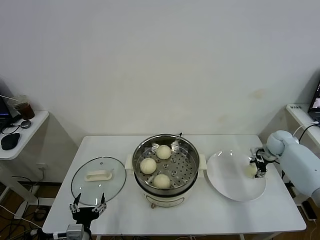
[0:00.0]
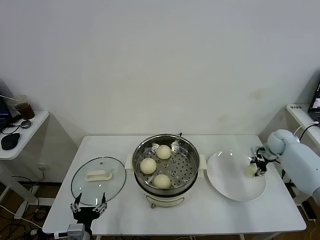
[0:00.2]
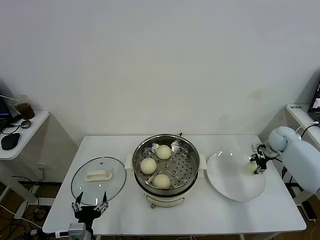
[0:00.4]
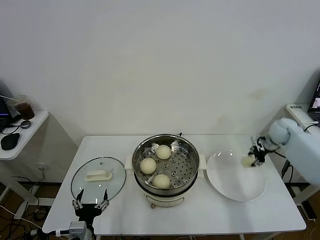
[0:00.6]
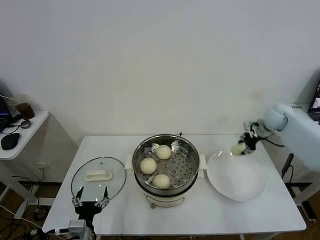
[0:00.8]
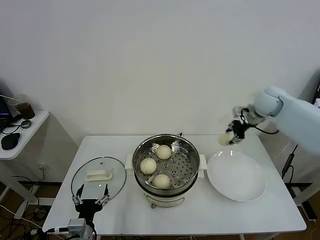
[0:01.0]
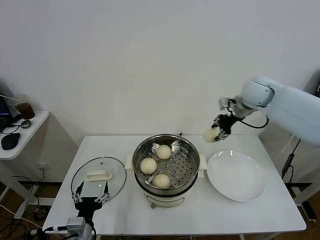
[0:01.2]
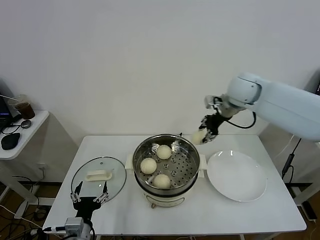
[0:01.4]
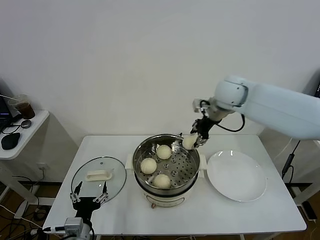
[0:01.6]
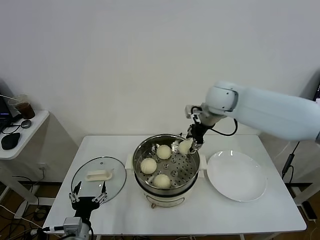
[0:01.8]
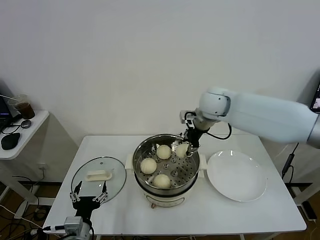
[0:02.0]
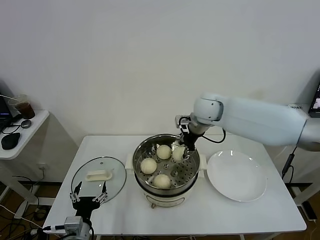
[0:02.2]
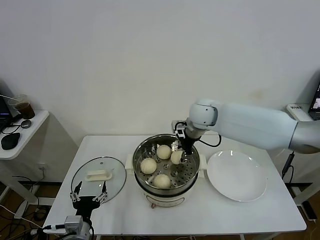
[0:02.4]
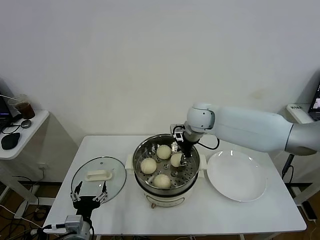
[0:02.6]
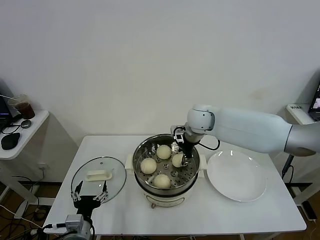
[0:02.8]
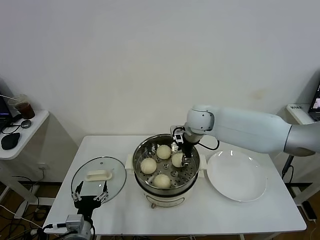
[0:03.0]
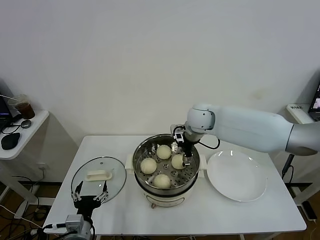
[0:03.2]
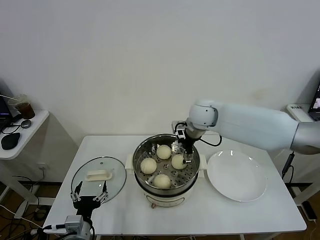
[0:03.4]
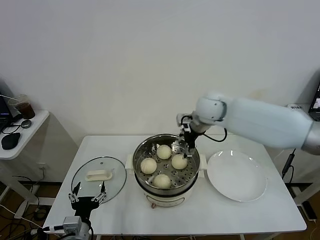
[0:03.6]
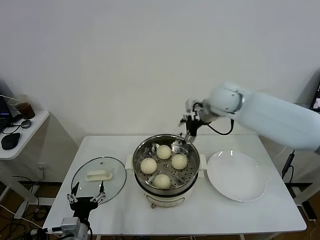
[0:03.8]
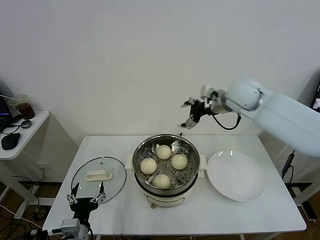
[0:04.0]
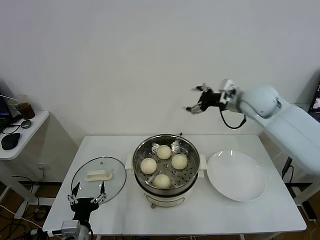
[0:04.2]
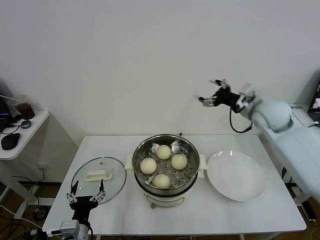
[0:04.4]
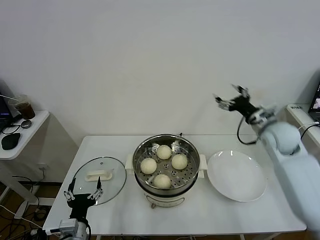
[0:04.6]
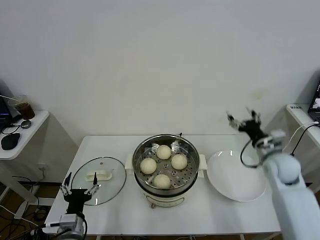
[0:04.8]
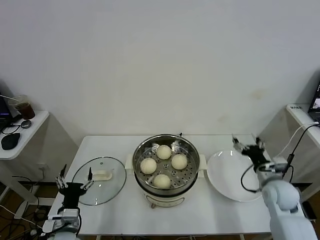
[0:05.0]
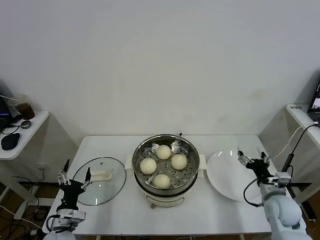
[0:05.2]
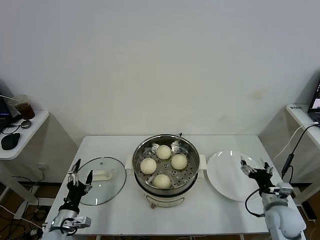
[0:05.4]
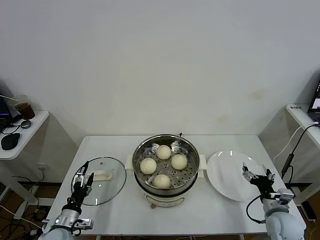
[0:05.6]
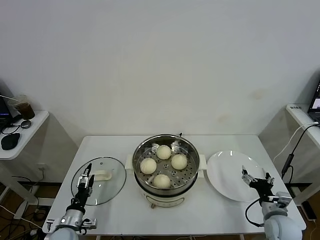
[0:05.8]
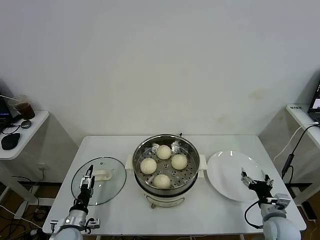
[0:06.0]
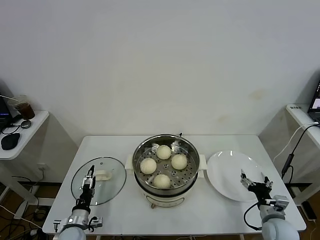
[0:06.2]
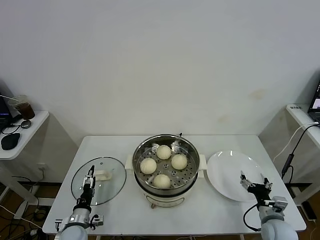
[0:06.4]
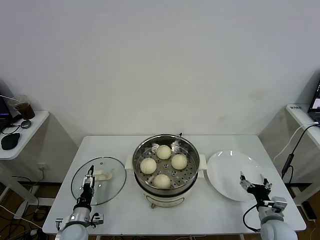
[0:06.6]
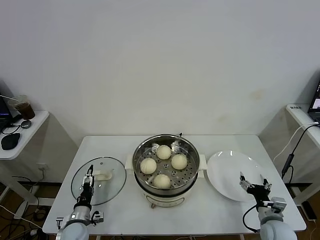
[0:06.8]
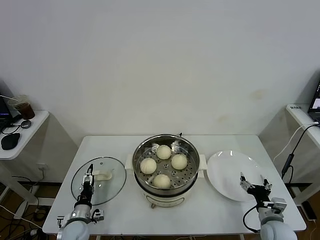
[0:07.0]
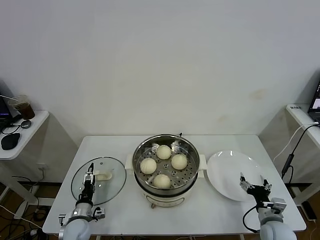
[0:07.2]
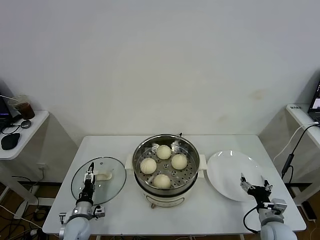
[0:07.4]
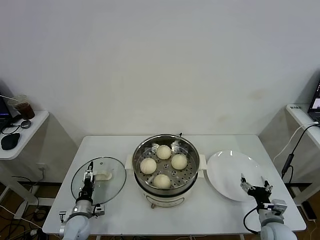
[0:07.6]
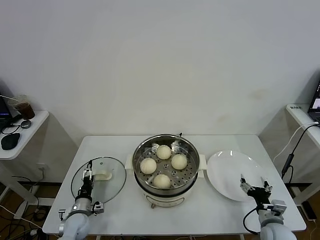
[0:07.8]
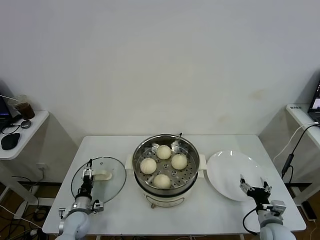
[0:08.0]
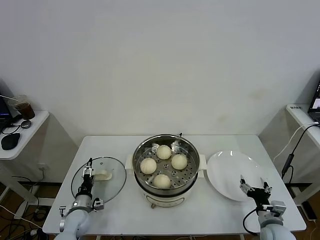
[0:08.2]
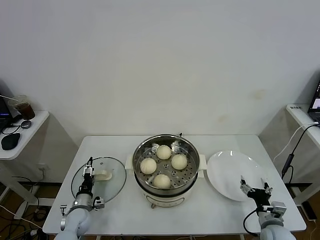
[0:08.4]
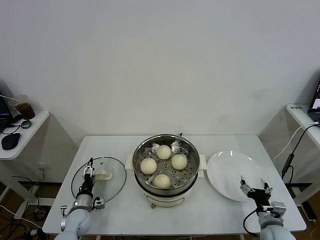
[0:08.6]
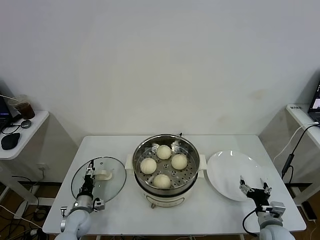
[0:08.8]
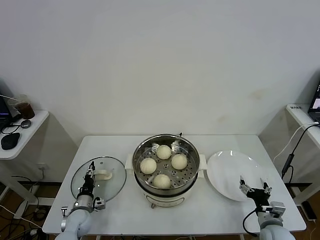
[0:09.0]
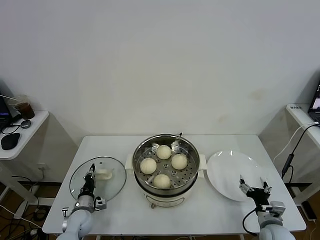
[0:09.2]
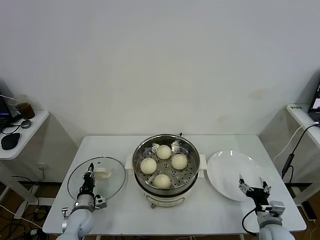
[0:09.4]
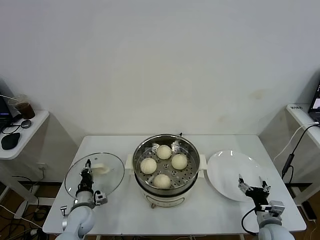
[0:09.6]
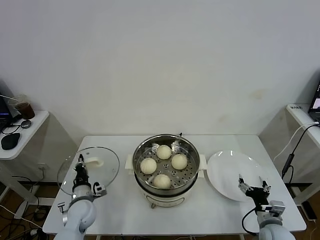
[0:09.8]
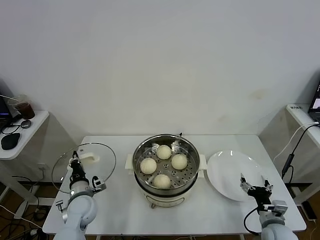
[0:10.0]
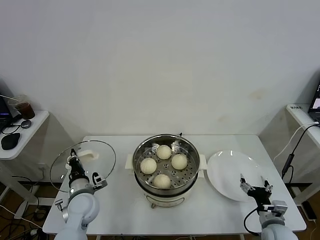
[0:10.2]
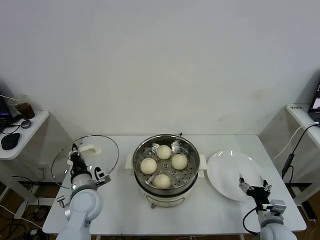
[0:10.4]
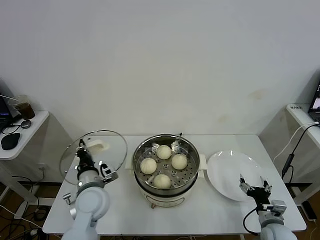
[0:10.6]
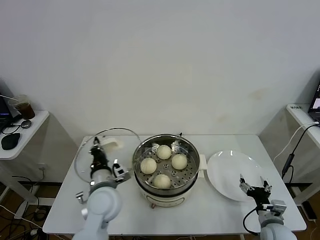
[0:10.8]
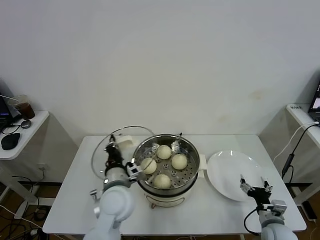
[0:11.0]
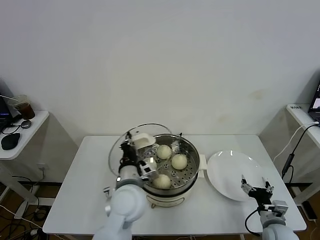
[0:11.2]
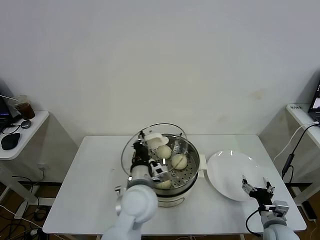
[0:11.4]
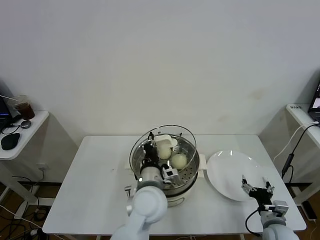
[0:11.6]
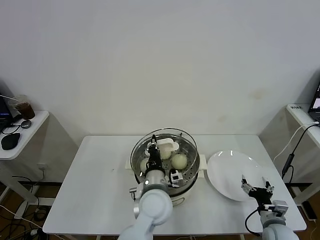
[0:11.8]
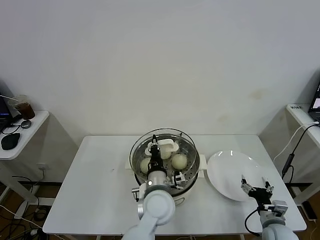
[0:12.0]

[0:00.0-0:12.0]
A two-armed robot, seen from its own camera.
Task of the whole recording: take steamed baozi put them in steamer.
Step, 0:00.4 to 0:03.4: Place the baozi on the steamer with right gripper.
Step, 0:03.6 to 0:09.4: Grasp the pot lid with left gripper.
0:00.0 to 0:01.6: The right gripper goes about 35 cm to the left and upward, and closes up.
0:01.6 to 0:03.0: The right gripper goes approximately 10 cm downward and to the left.
0:03.0 to 0:04.4: The right gripper shifts approximately 20 cm to the right, and opens up.
0:04.4 to 0:06.0: The right gripper is displaced downward and backward by about 35 cm, while the left gripper goes about 15 cm downward, to the left and forward.
0:06.0 to 0:07.6: The left gripper is displaced forward by about 5 cm.
0:07.6 to 0:09.0: The left gripper closes its fingers.
0:09.0 to 0:10.4: The left gripper is displaced upward and to the right by some 20 cm, and closes its fingers.
0:10.4 to 0:12.0: The left gripper heads to the right, covering some 25 cm.

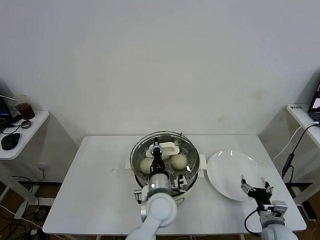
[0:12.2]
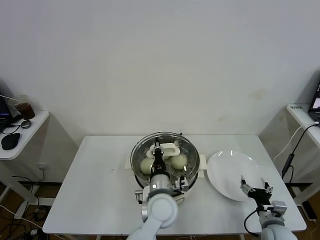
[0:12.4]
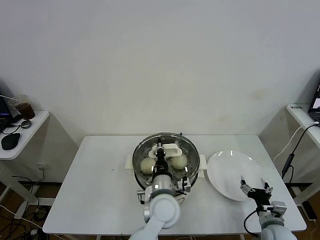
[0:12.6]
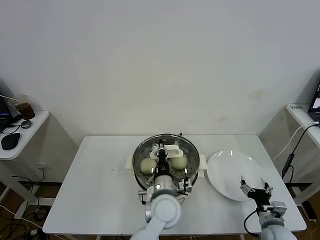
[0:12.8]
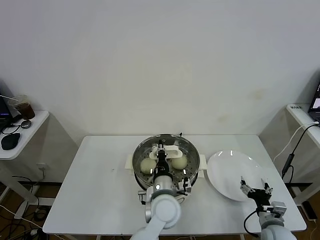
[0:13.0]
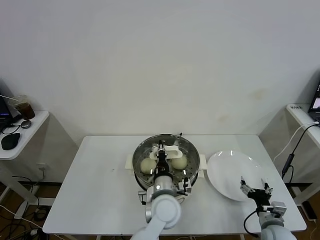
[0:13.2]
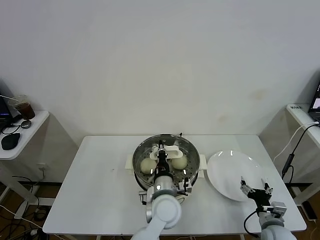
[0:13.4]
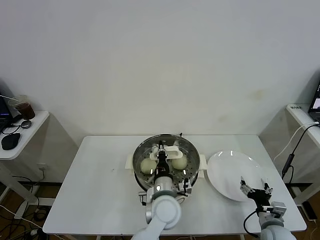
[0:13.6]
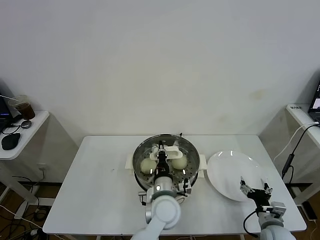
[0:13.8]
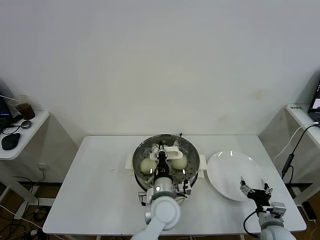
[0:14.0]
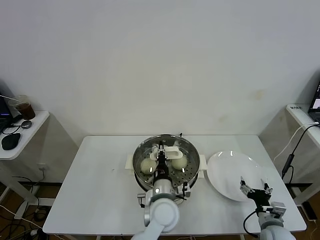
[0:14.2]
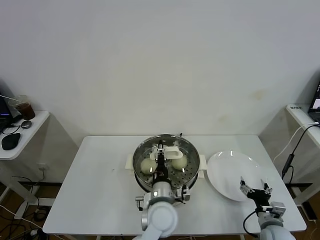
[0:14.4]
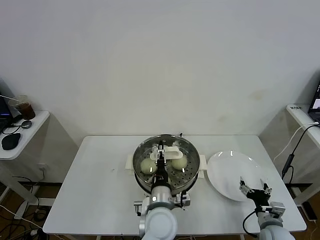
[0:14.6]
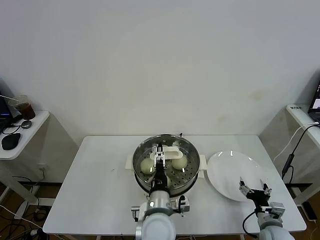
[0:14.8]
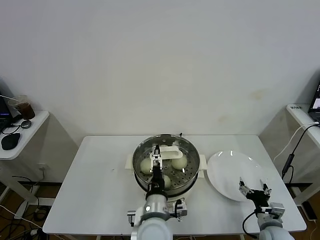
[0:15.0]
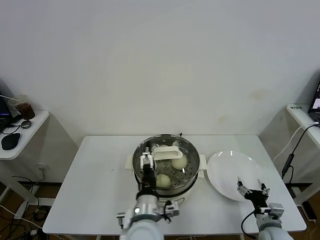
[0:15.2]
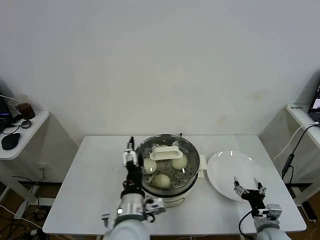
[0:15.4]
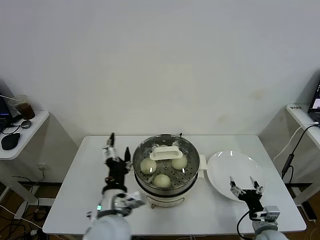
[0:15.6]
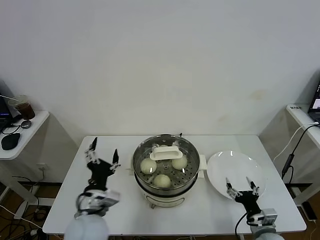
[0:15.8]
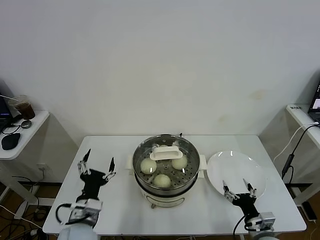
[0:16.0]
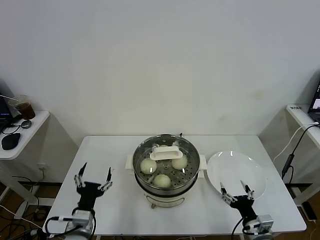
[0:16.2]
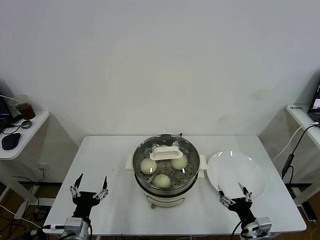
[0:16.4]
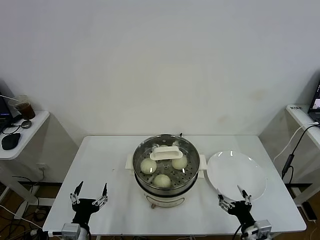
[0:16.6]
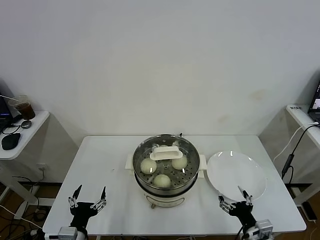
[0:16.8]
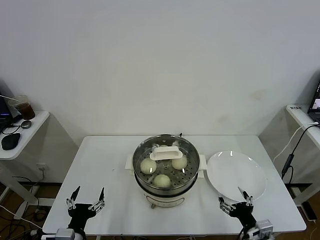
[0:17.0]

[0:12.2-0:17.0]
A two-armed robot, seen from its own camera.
Task of the whole recording: take steamed baozi put them in steamer.
Step, 0:12.2 to 0:14.6: Place the pot lid on the steamer with left gripper.
0:12.2 to 0:13.8: The grippers stay close to where they were, moving slightly.
0:13.8 to 0:15.4: The left gripper travels backward, to the left and upward by approximately 15 cm, and opens up.
0:15.4 to 0:17.0: The right gripper goes some 5 cm backward, while the left gripper goes some 20 cm to the left and downward.
